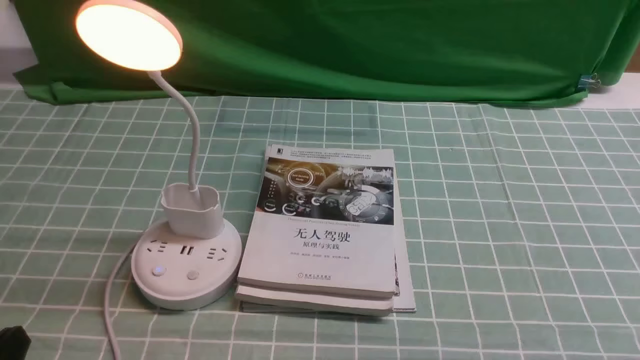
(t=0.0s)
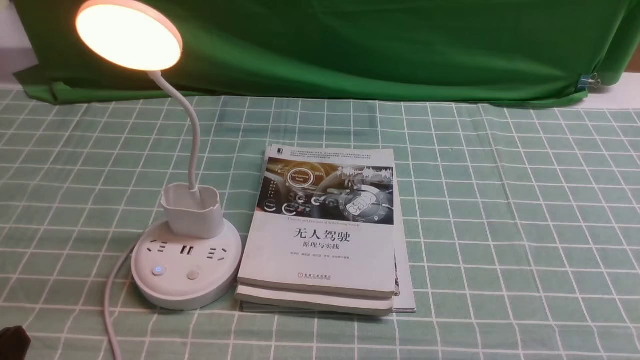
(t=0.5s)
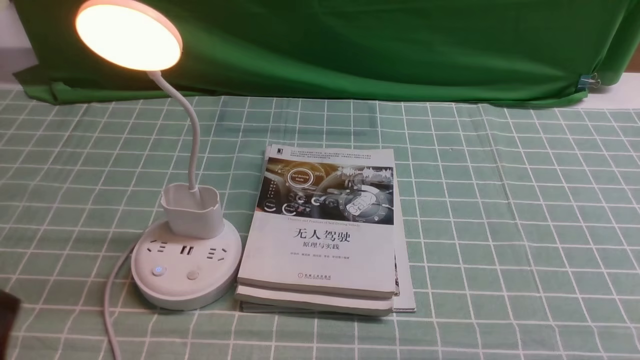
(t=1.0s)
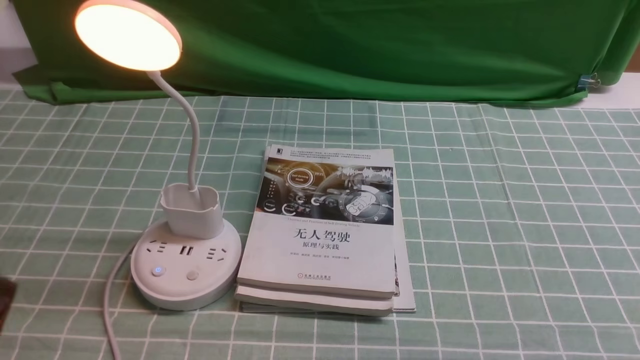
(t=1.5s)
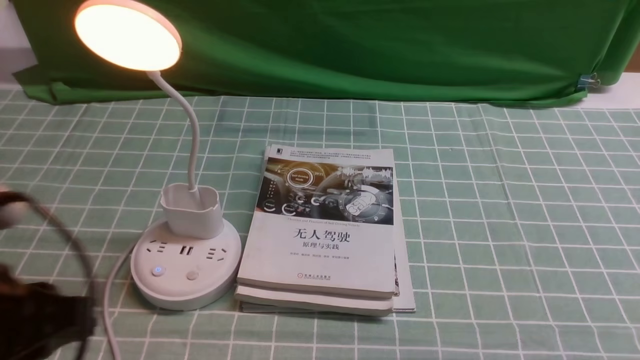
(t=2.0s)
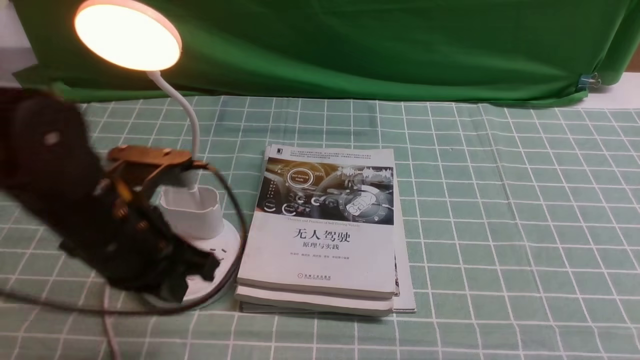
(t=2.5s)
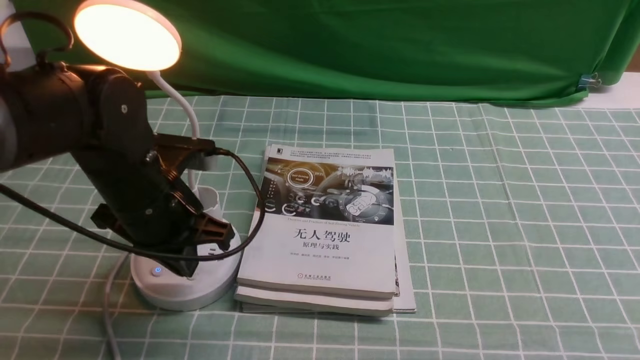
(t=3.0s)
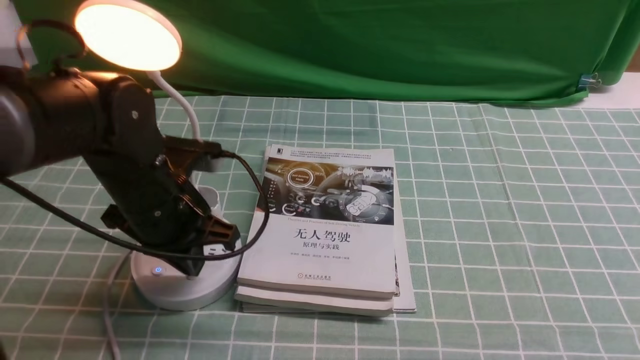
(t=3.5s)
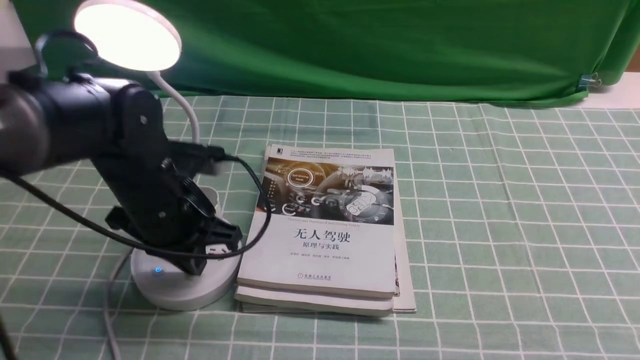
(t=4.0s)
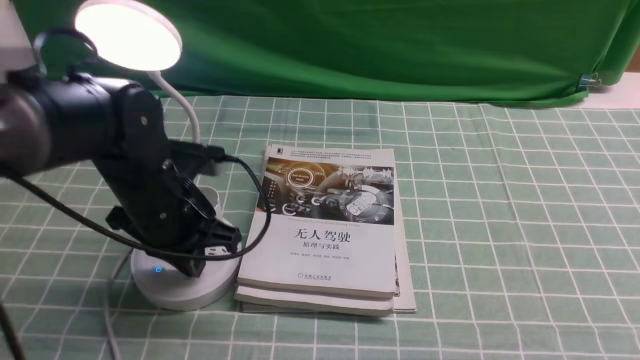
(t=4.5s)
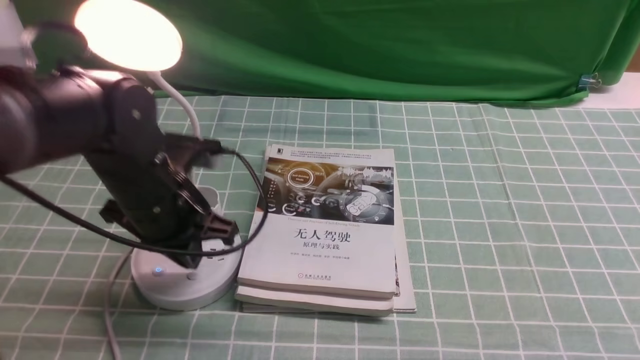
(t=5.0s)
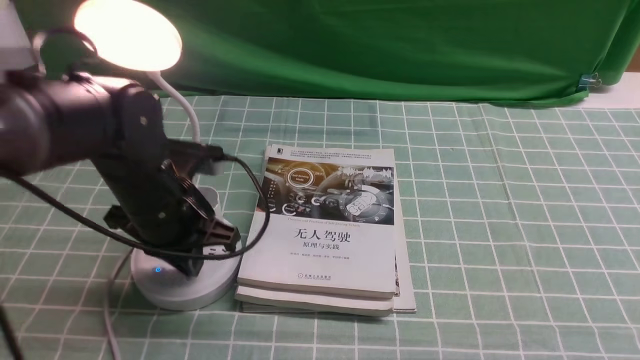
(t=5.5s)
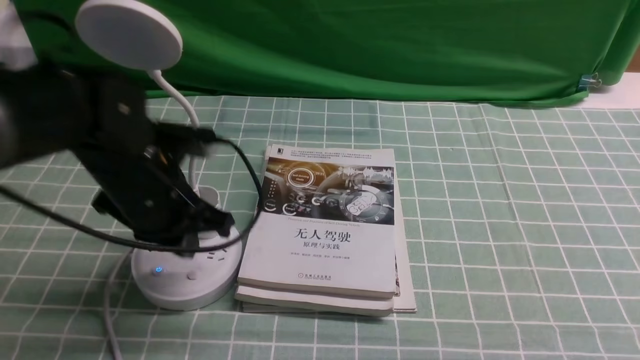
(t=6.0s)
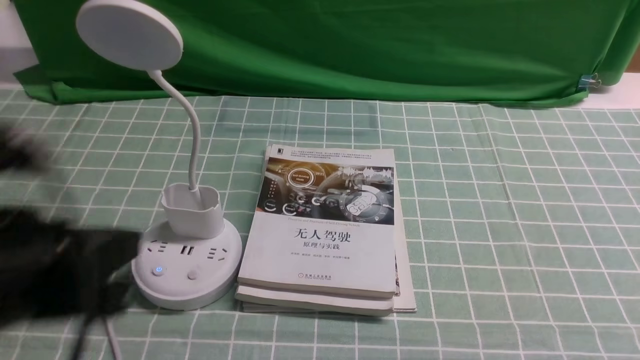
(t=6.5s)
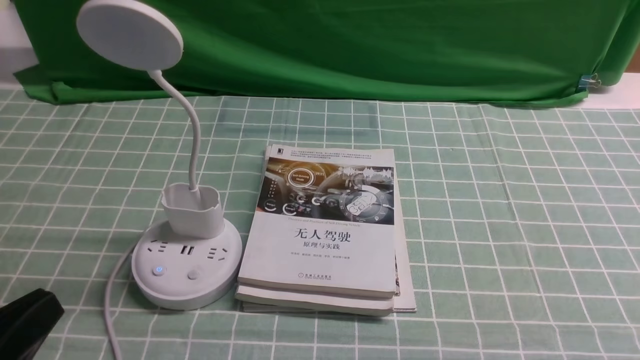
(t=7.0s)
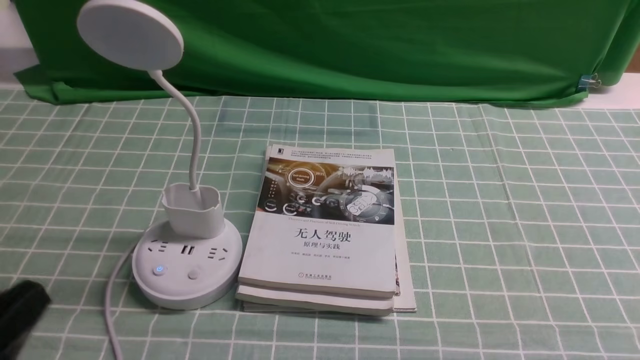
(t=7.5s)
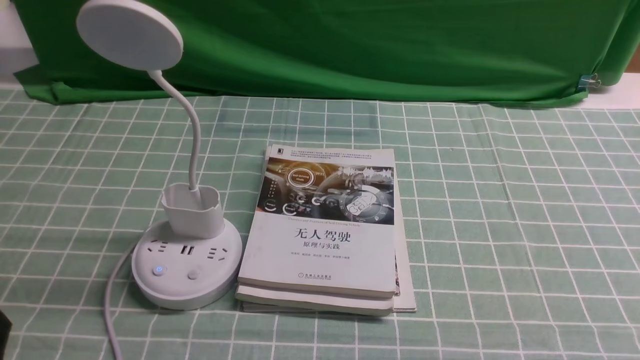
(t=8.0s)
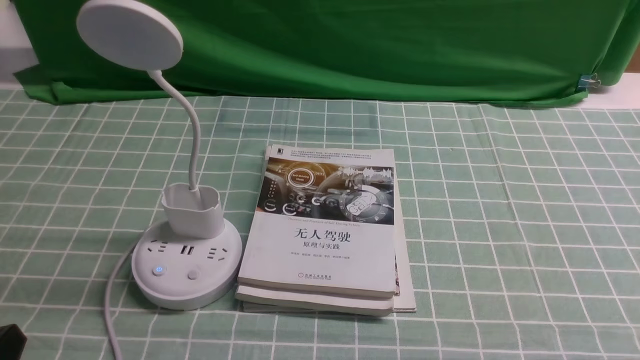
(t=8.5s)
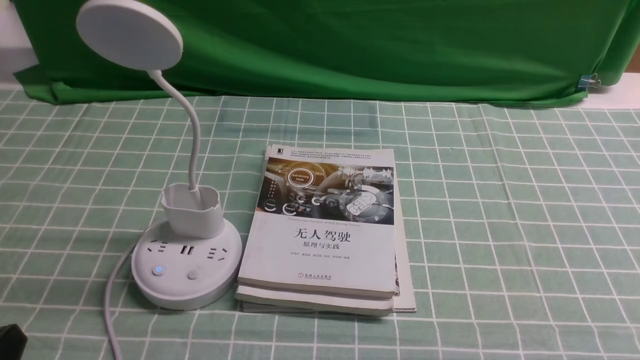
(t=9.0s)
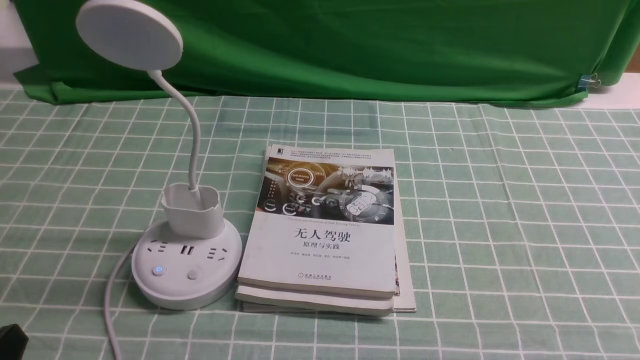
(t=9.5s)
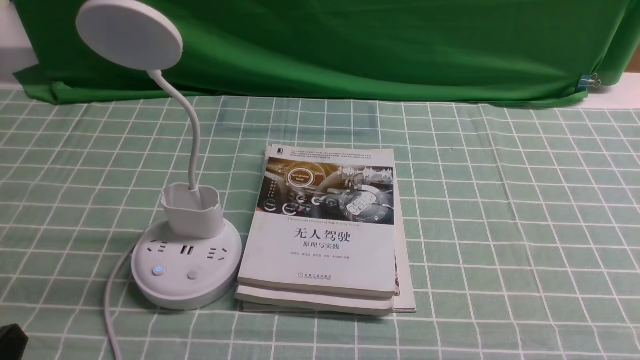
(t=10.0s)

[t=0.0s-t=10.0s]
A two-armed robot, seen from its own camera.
Task of the whole recording: turn off the desk lamp on the blue coffee tablecloth by hand.
Step, t=0.0s to t=5.5s: use the left arm to press the button switch on the lamp holder.
t=0.0s to t=2.0s: The left gripper travels upward and forward by approximately 15 cm.
t=2.0s to t=4.0s: The left gripper travels forward and to the right by roughly 20 cm, and closes its fingers.
t=4.0s to t=6.0s: The grippers move only a little.
t=6.0s to t=8.0s: The left gripper travels backward and to the left by some 25 cm.
